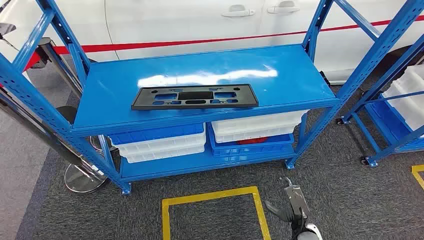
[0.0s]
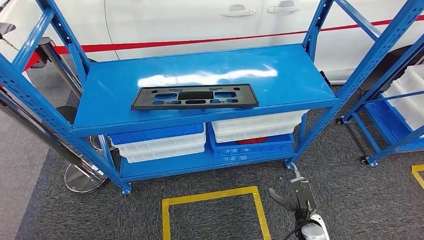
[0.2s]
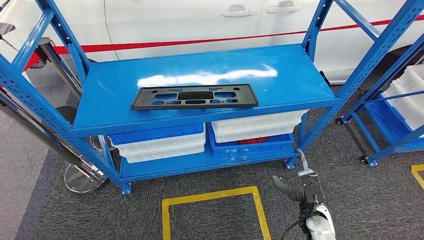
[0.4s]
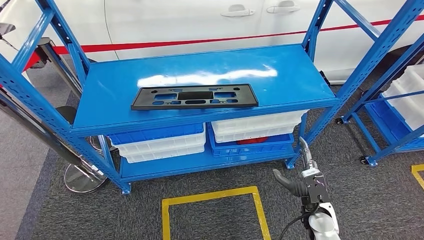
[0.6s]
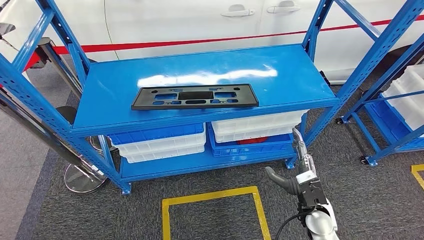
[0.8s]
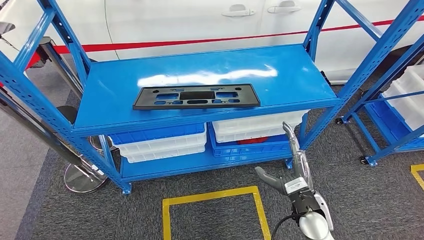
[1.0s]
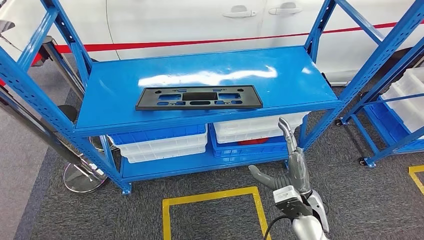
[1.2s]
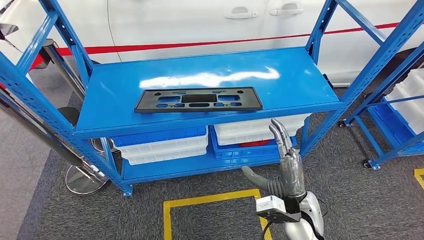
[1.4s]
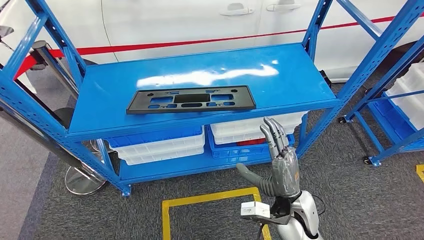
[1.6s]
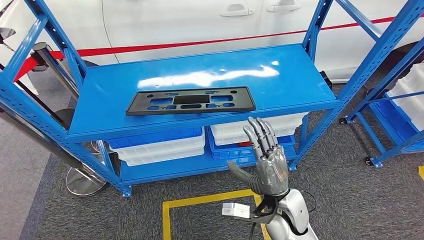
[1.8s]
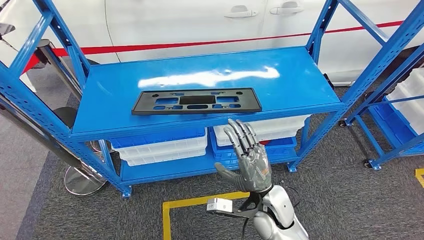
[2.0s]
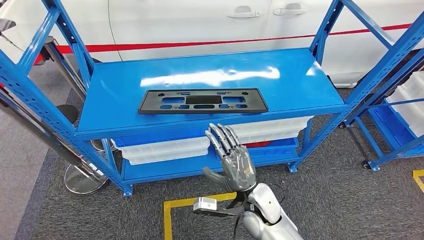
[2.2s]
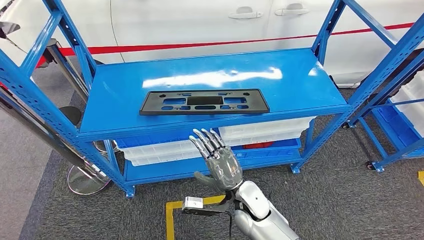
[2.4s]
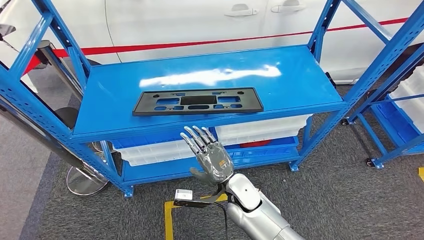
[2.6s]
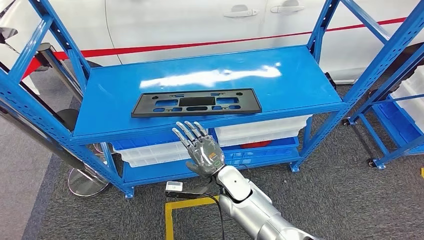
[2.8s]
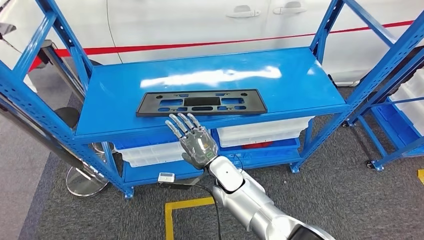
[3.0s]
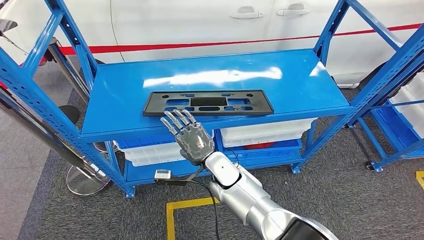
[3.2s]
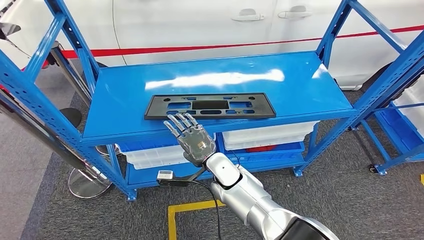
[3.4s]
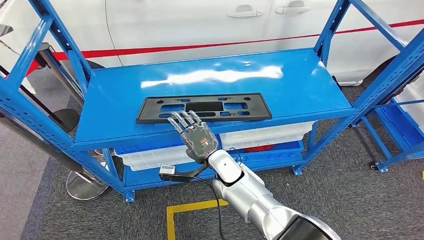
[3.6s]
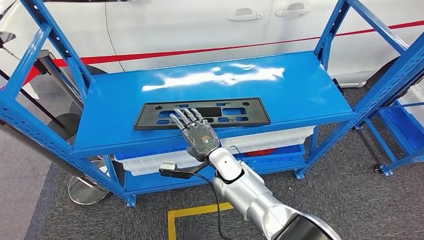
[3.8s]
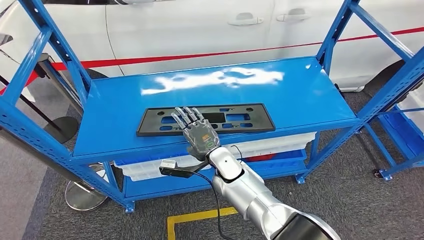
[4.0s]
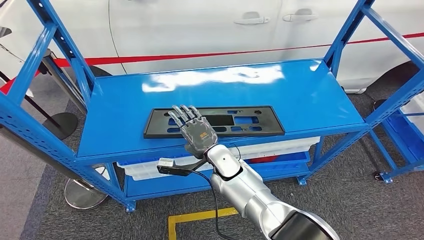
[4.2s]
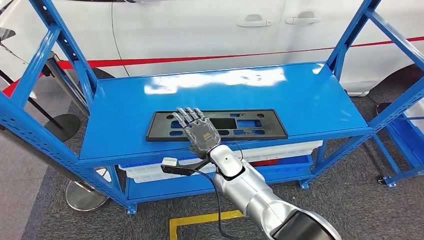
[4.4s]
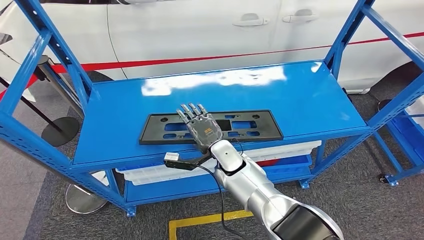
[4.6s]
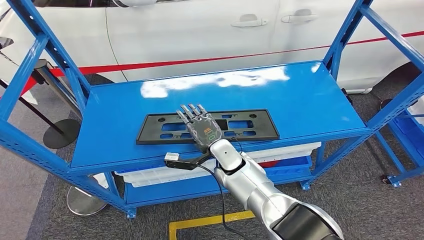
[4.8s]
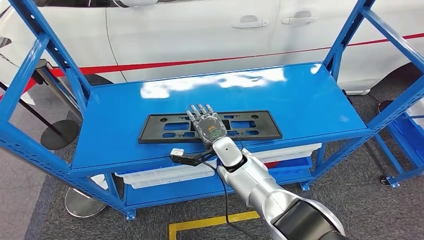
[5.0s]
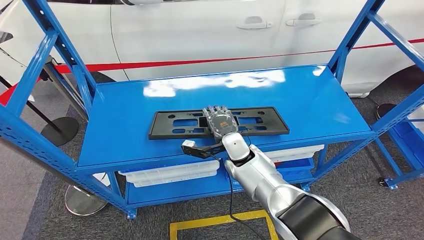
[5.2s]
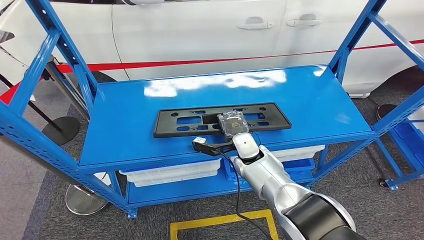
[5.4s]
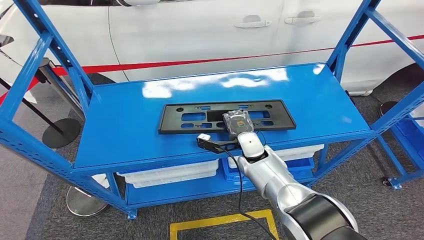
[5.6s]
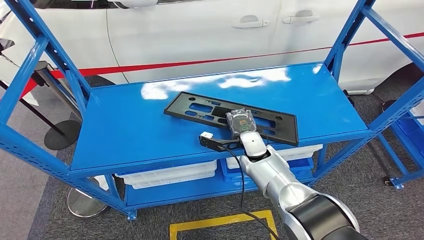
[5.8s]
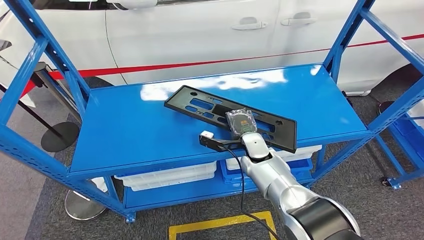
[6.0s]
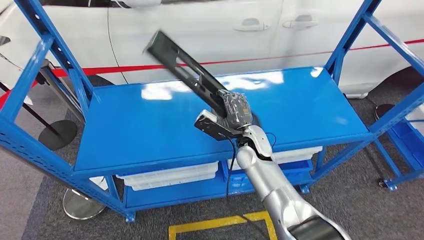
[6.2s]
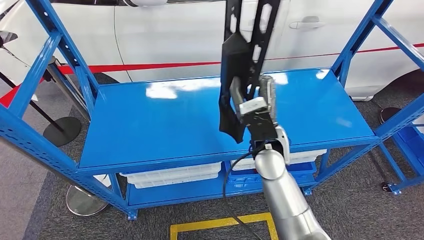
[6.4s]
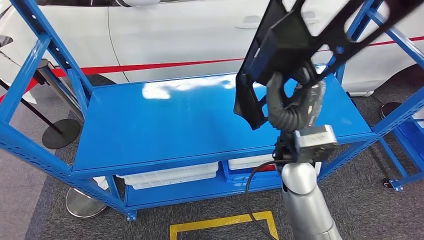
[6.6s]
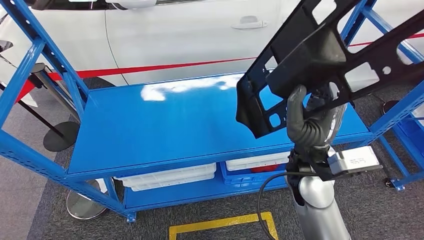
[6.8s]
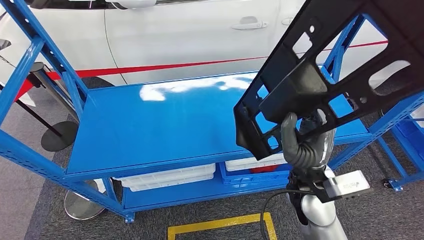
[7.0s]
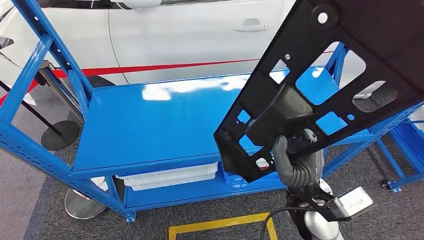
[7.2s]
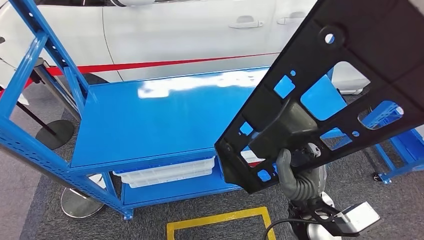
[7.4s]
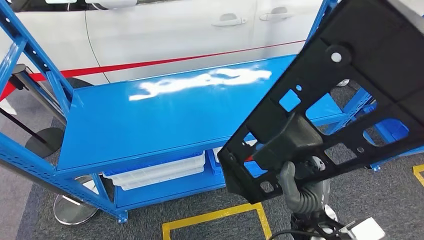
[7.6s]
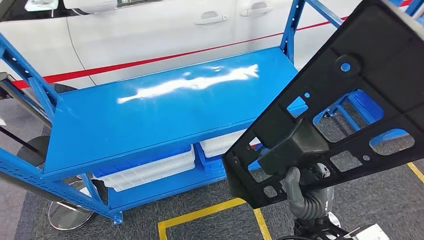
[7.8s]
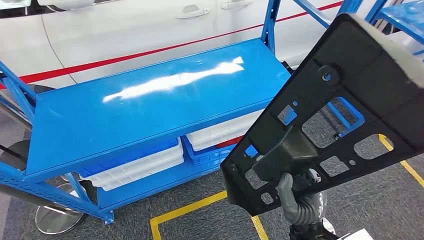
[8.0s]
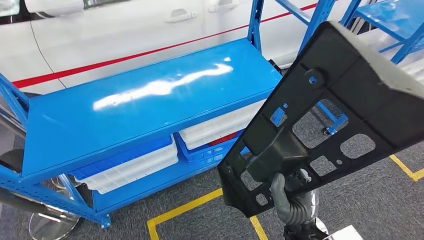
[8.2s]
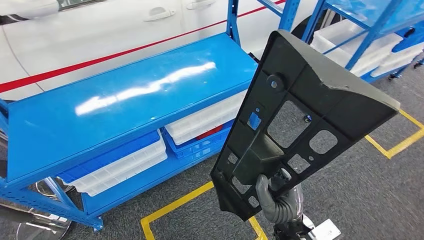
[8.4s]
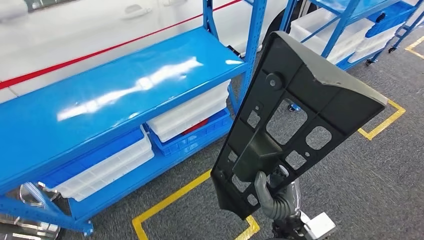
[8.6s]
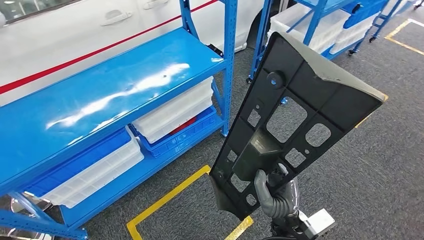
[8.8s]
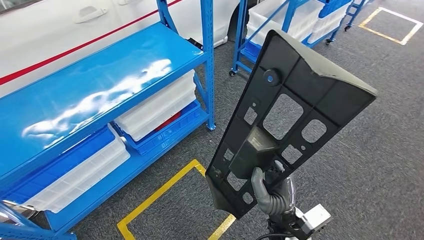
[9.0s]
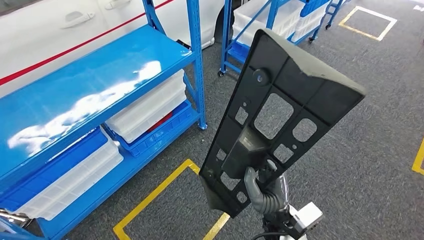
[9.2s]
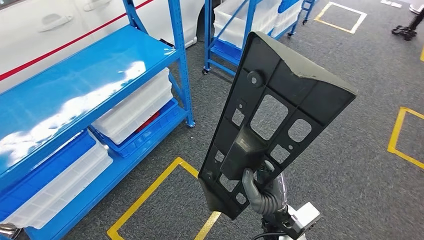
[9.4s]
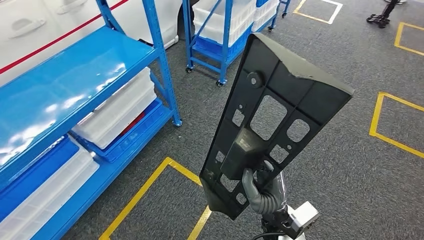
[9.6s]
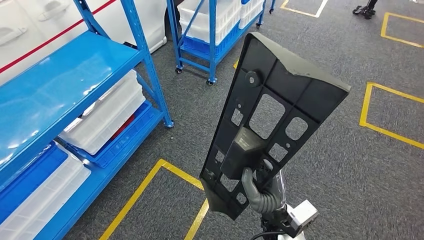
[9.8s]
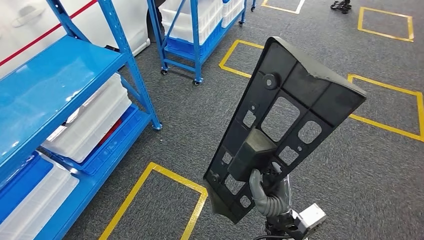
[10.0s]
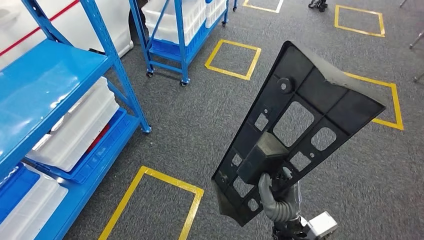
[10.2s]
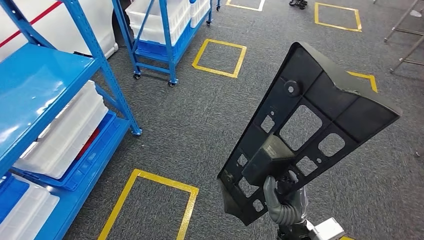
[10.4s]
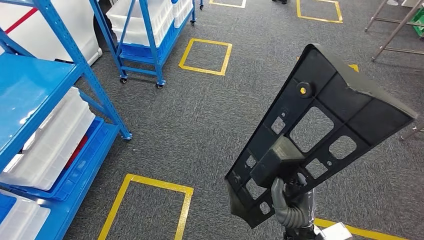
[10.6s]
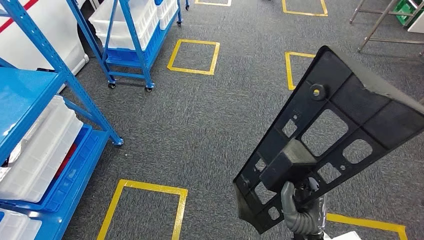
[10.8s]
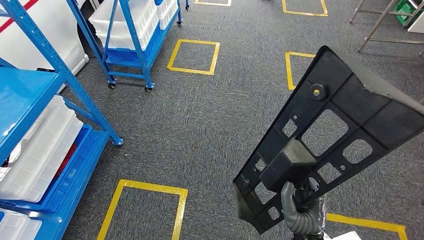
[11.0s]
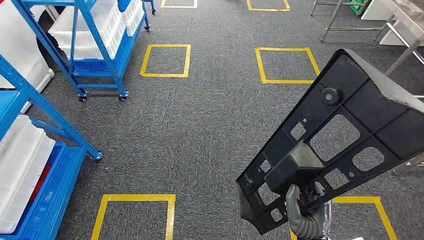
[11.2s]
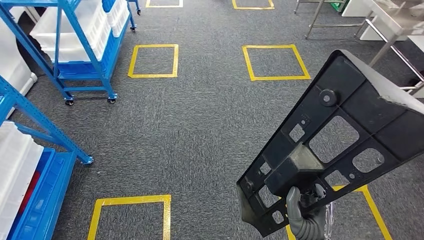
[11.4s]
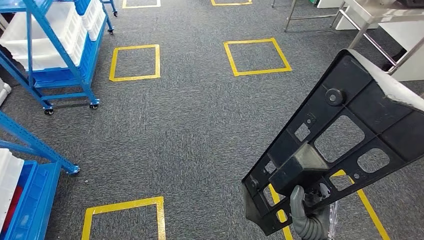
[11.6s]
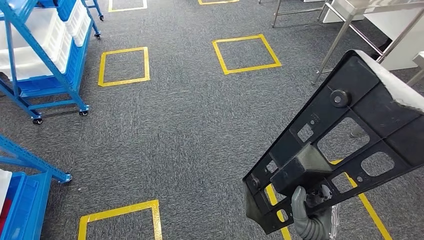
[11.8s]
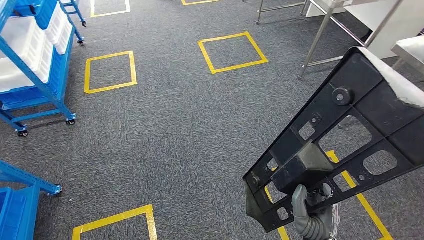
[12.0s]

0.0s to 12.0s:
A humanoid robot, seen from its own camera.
Step, 0.0s to 7.4s: Pick up the large material from the shelf.

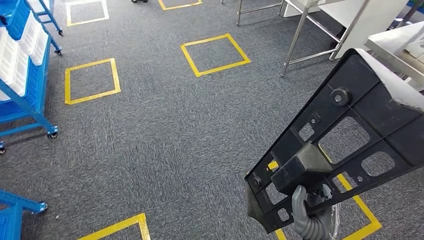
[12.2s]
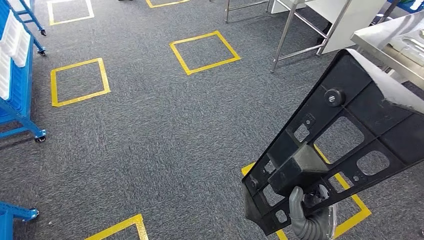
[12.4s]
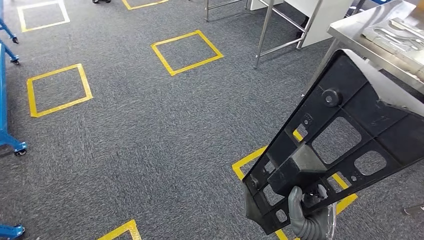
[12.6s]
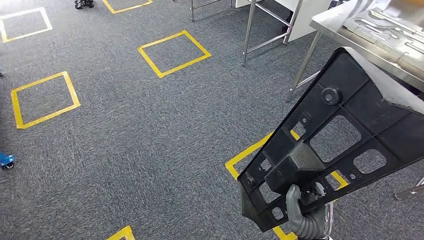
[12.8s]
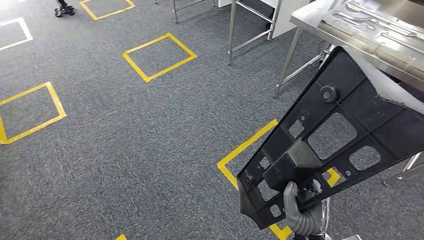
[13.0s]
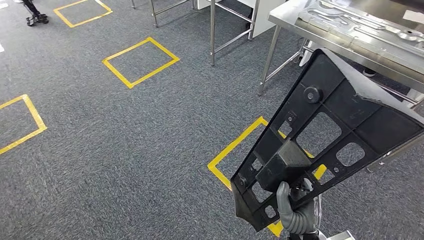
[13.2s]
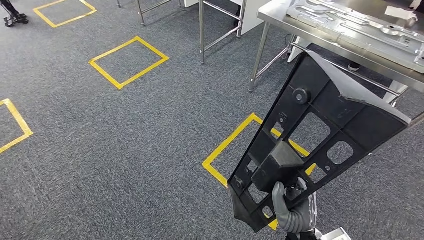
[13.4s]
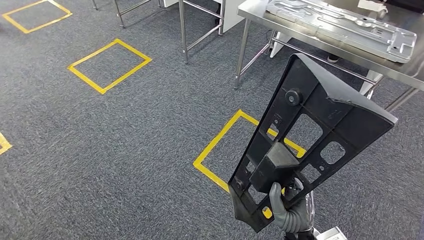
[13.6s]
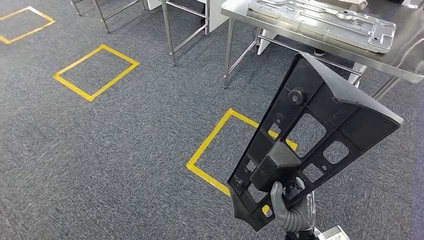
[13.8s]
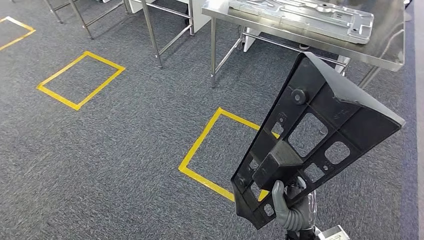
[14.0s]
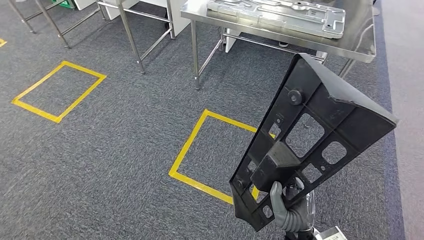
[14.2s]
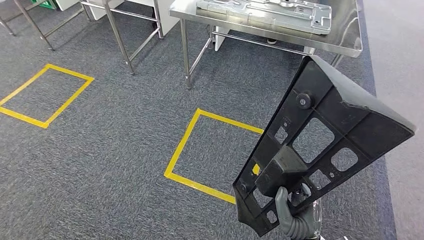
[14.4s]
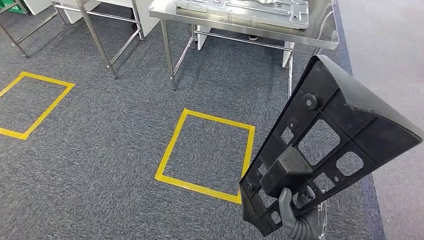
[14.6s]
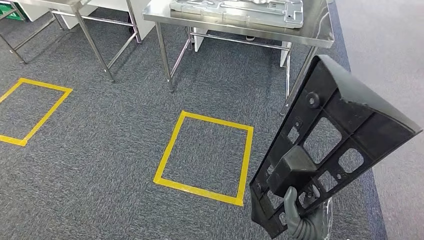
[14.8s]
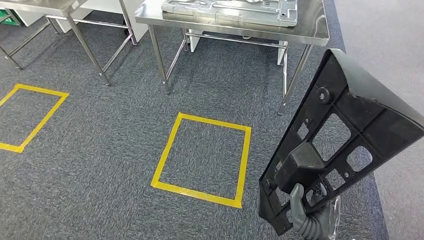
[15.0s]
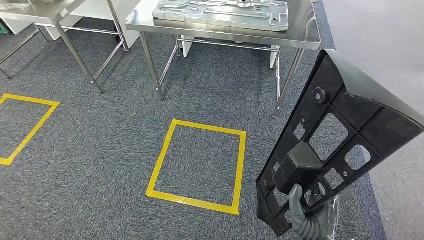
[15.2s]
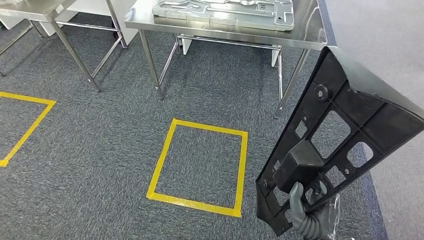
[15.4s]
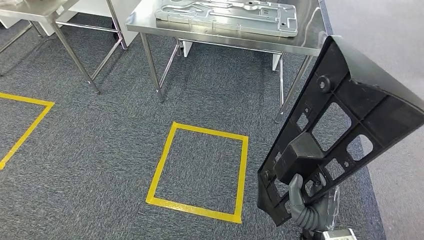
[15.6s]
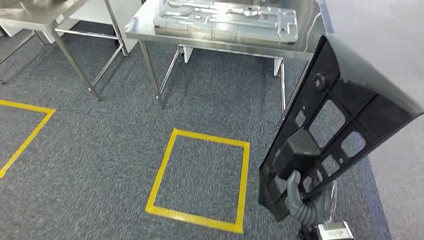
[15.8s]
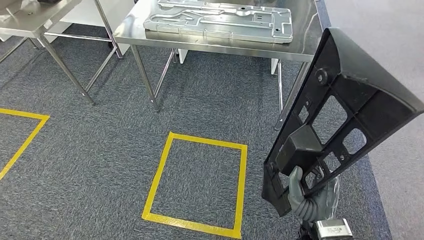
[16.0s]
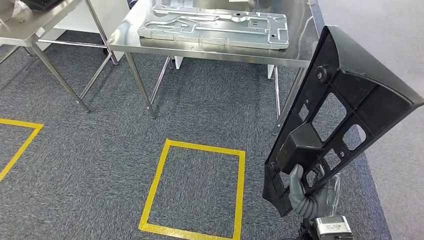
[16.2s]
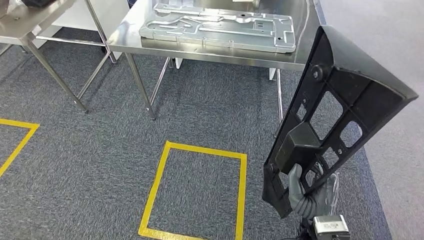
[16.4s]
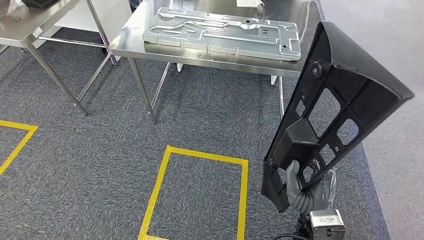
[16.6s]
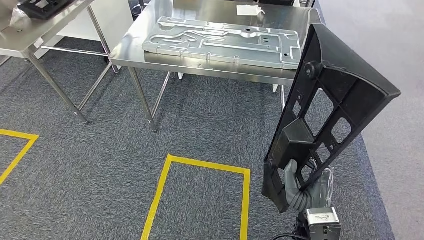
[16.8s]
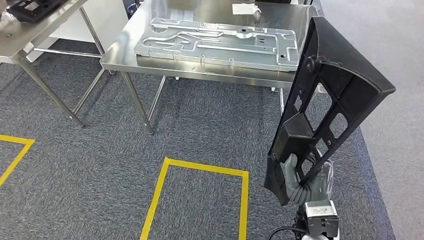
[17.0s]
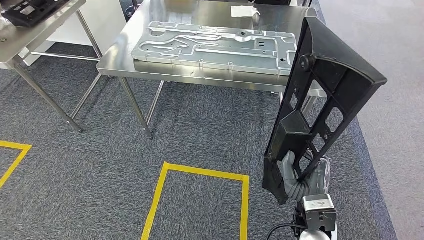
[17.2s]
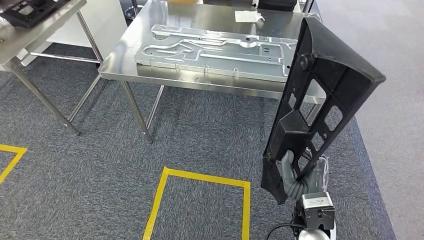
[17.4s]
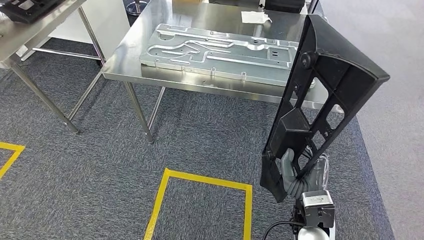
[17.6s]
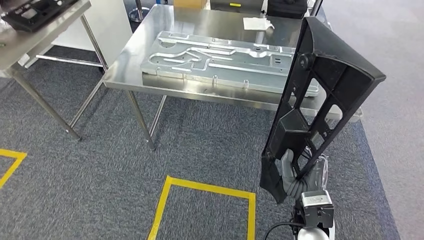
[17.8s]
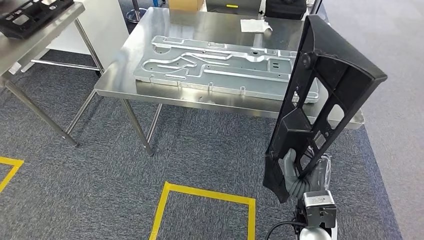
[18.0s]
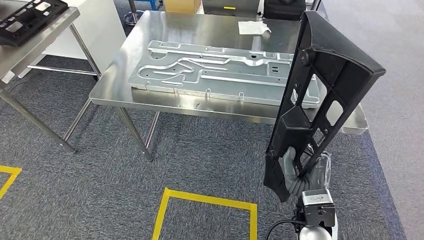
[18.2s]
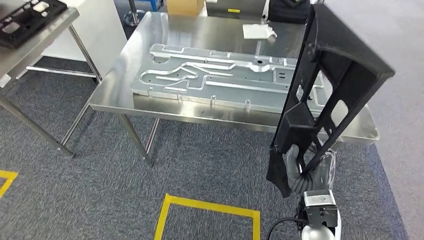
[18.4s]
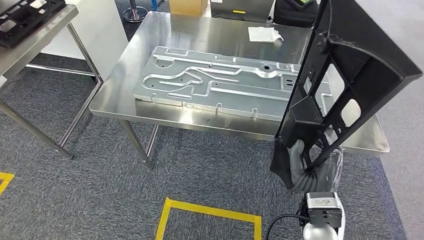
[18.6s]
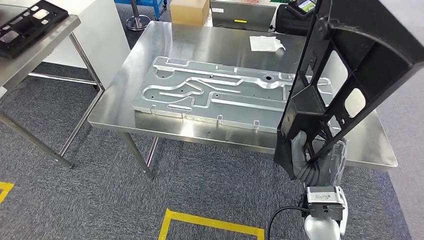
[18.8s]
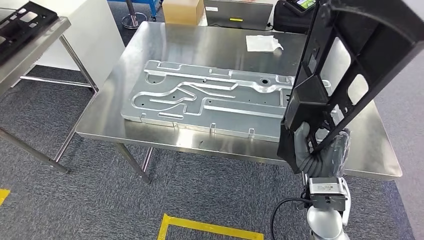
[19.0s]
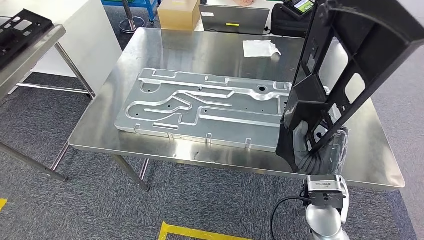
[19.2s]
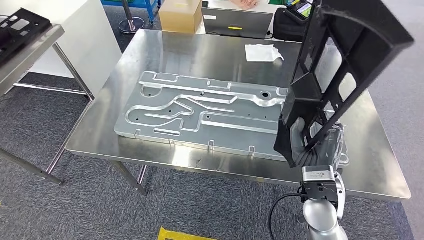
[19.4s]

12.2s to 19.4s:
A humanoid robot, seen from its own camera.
Step, 12.2s to 19.0s: Move the large material to the workbench.
